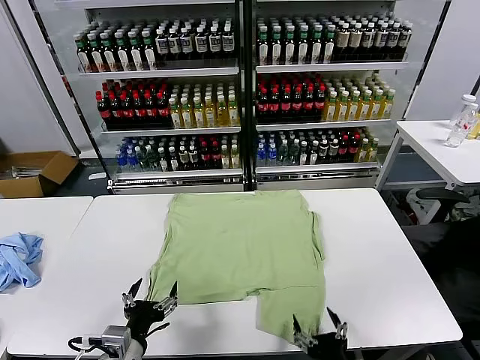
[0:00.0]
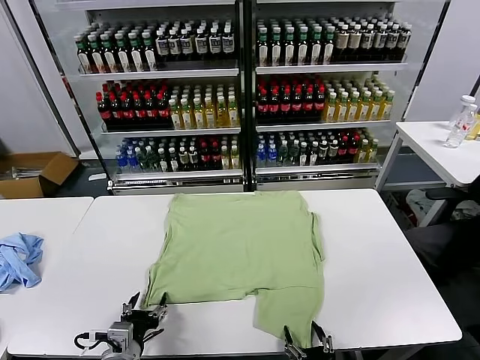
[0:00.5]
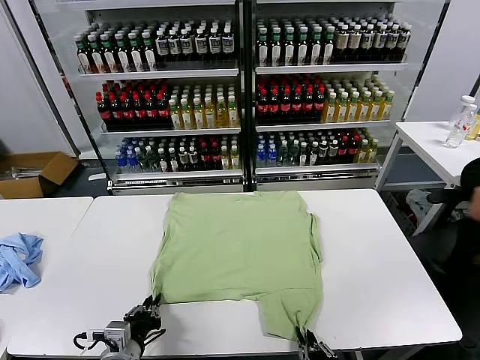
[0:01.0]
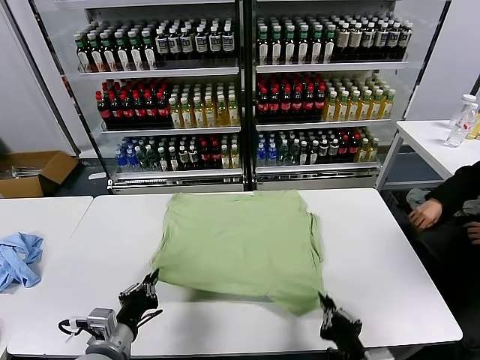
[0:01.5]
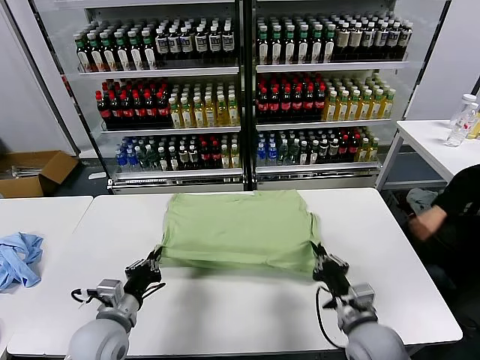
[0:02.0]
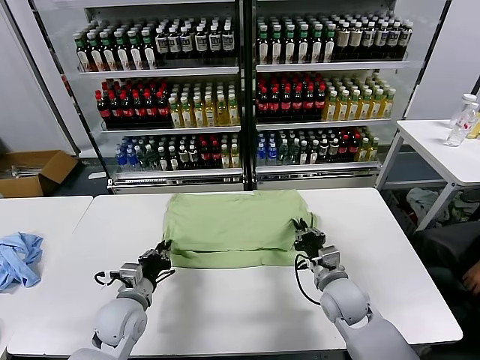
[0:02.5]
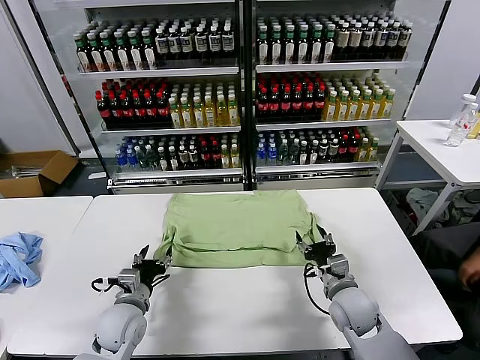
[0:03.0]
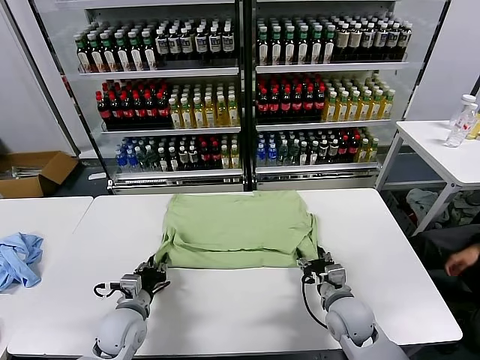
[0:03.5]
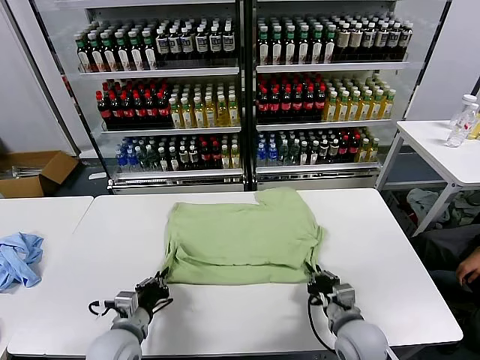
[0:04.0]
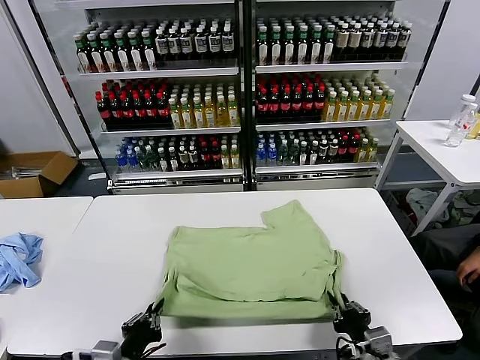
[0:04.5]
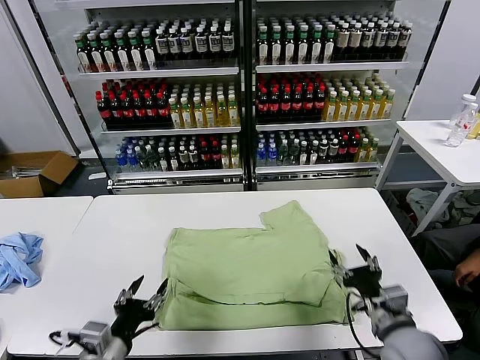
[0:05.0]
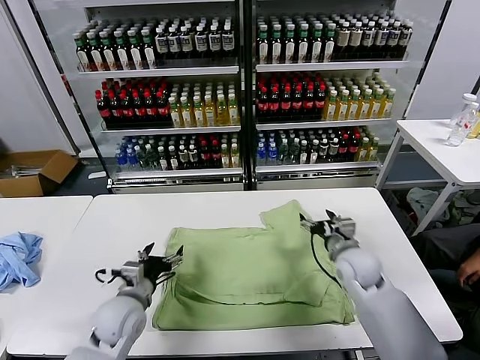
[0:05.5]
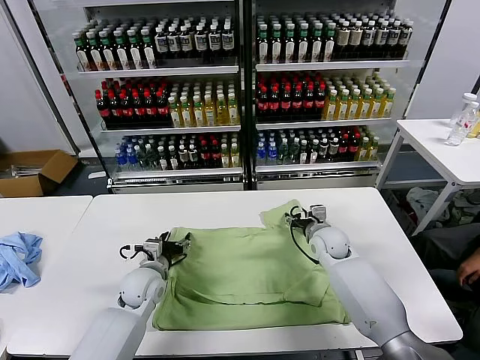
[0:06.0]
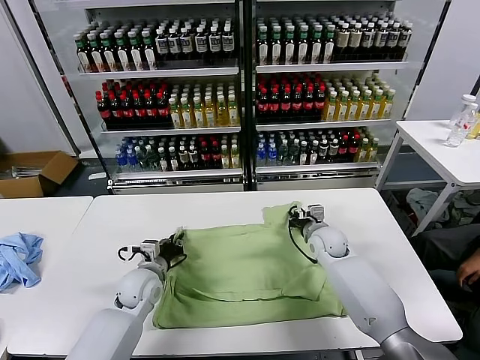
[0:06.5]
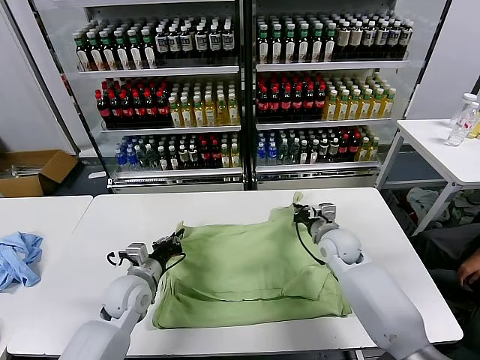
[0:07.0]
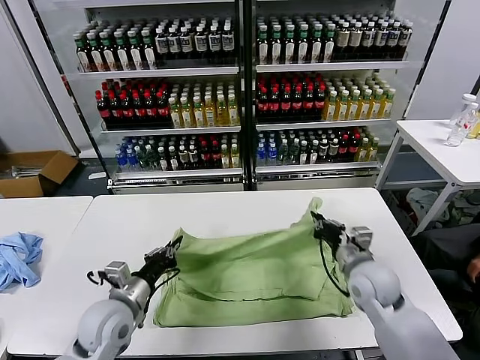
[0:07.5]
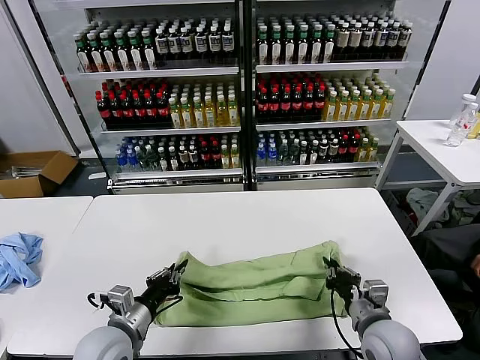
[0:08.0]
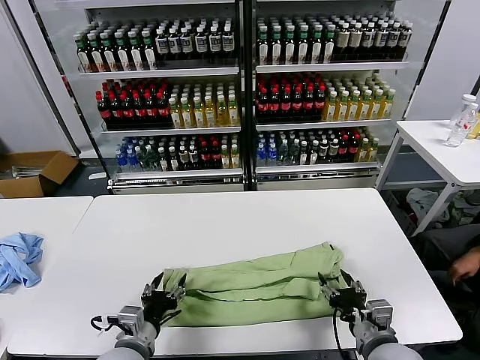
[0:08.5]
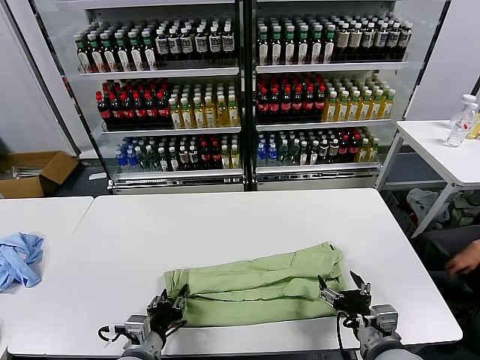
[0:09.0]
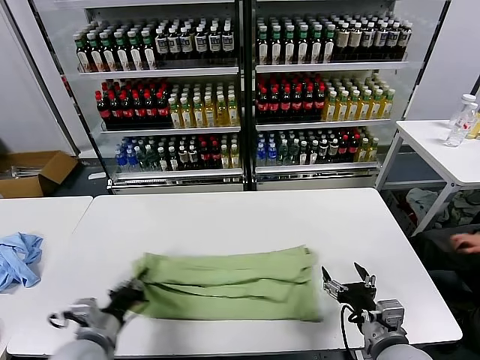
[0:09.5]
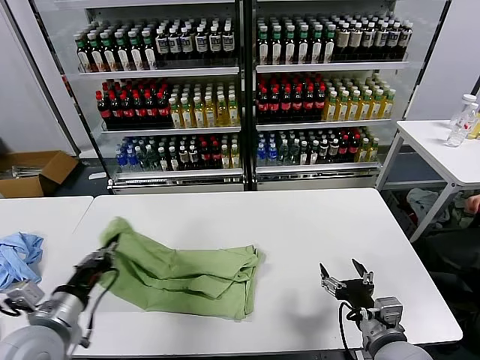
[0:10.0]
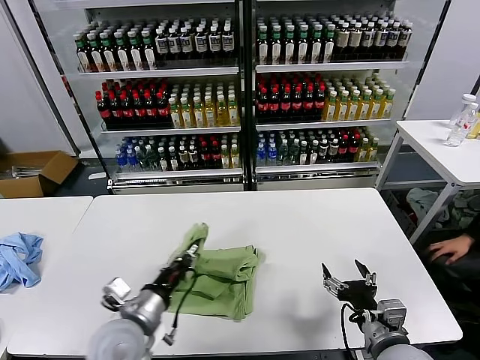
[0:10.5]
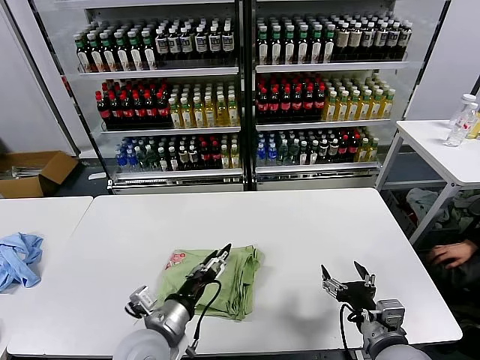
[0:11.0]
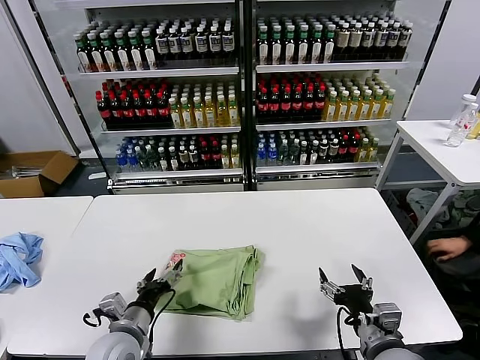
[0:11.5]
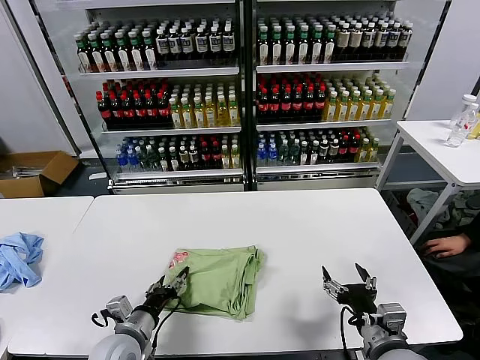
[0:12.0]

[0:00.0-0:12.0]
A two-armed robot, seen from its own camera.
Task of the whole recording: fold and organize the clothes.
Step, 0:00.0 to 0:01.0: use both grippers simultaneously to clamp the lower edge of the clothing fabric.
Step, 0:01.5 to 0:02.5: use both grippers to drag the lower edge of the fabric forward and fold it over the upper edge.
Step, 0:03.5 to 0:04.5: Drag the clothes downward with both gripper.
Step, 0:05.0 to 0:06.5: use both grippers simultaneously to clamp the upper edge of the clothing fabric.
Step, 0:07.0 to 0:08.0: use both grippers to drag the upper edge of the fabric backward and fold it over the lower edge.
Step, 0:08.5 to 0:09.0: use the left gripper to clamp the left edge of the fabric.
Step, 0:09.5 to 0:10.5: use the left gripper to drag the left edge of the fabric to the left and folds it over the right edge.
0:02.0 to 0:04.0: The right gripper ends up roughly 5 cm from where it was, and opens, then closes again, while the left gripper opens, then closes once more.
0:04.0 to 0:06.0: The left gripper shifts about 15 cm forward, and opens its fingers, while the right gripper is displaced forward by some 25 cm, and opens its fingers.
0:06.0 to 0:08.0: The left gripper shifts about 15 cm backward, and closes; the right gripper moves backward, roughly 25 cm, and closes.
0:08.0 to 0:10.0: The right gripper opens its fingers. The left gripper is displaced to the left and upward by some 10 cm, and opens, then closes once more.
0:10.0 to 0:12.0: The left gripper heads downward and to the right, covering some 15 cm, and opens.

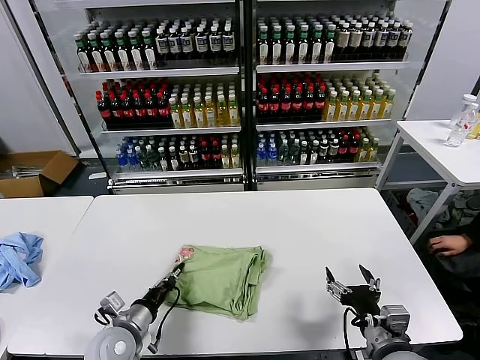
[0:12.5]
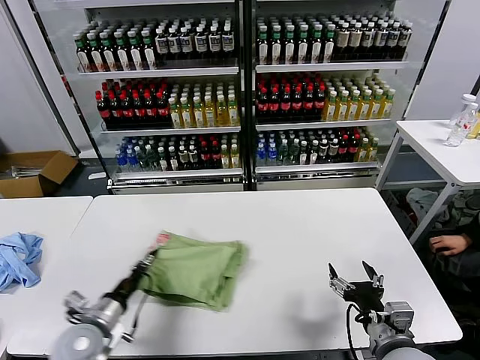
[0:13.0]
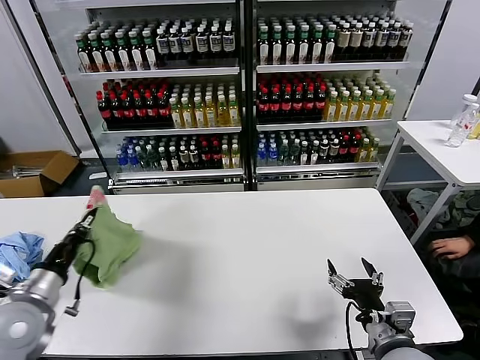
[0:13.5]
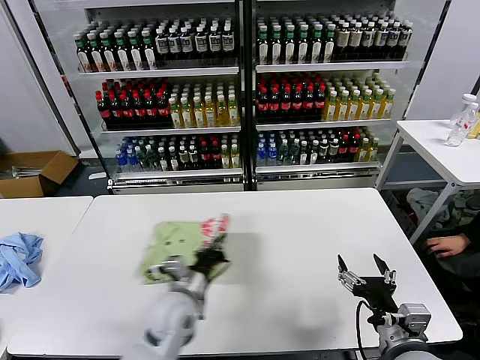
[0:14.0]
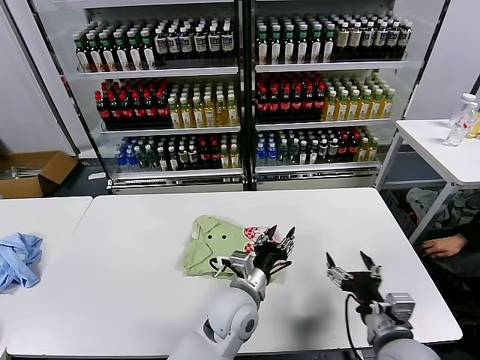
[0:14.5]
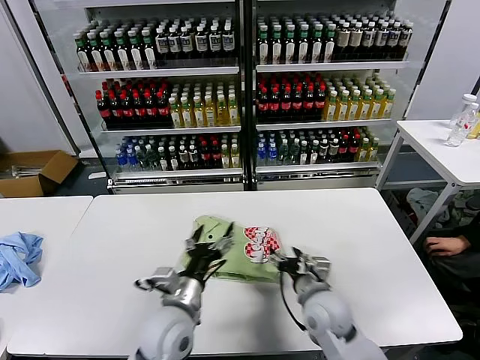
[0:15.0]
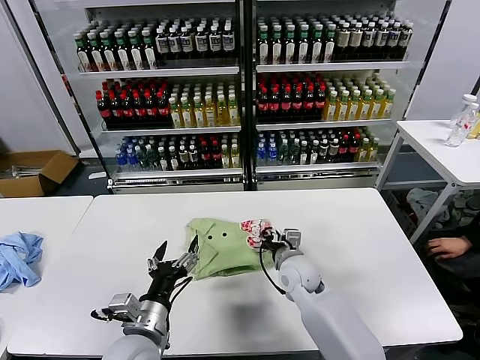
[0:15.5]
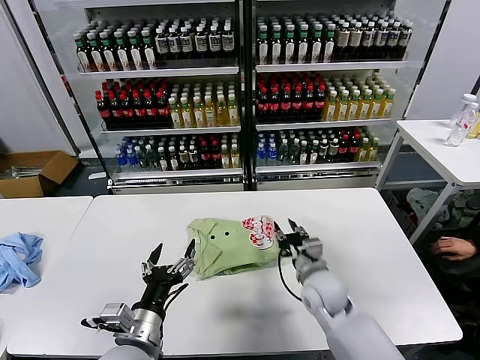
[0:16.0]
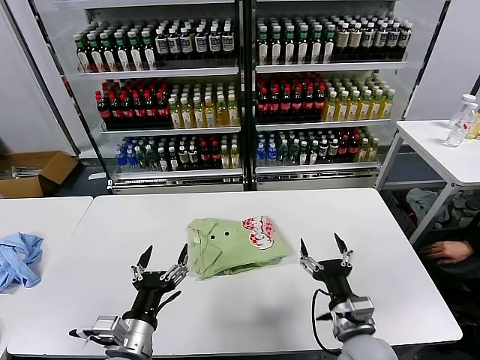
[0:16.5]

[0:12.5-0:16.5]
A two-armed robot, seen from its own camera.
Task of the whole recording: fold and organize the clothes.
Step, 0:14.5 to 0:15.5: Drag the clothes to the center of the table.
0:12.5 to 0:14.5: The left gripper travels to the right by about 25 cm, and opens its fingers.
0:14.5 to 0:16.5: The left gripper shifts approximately 25 cm to the left and backward, and opens. Meanwhile the right gripper travels to the left by roughly 5 cm, reaches about 20 cm forward, then returns, and closes, then reopens.
